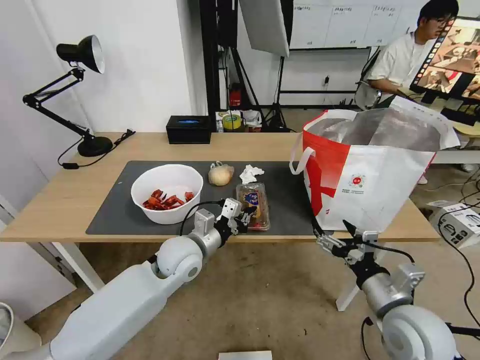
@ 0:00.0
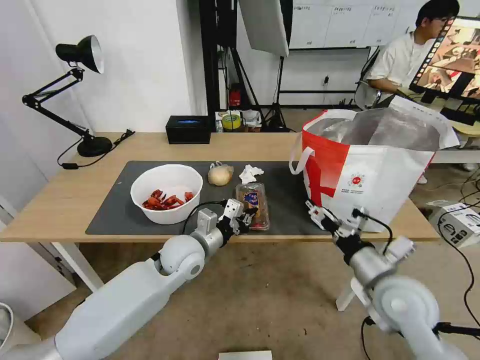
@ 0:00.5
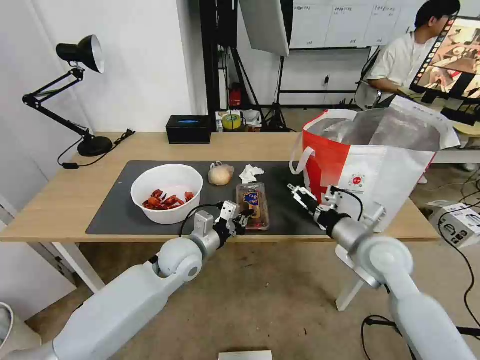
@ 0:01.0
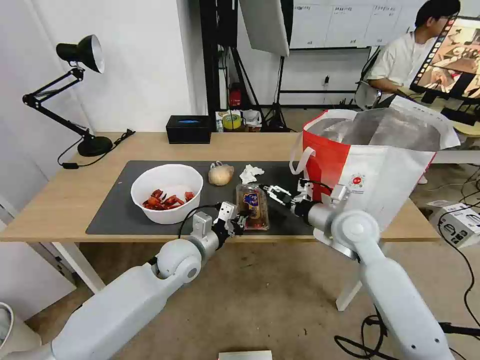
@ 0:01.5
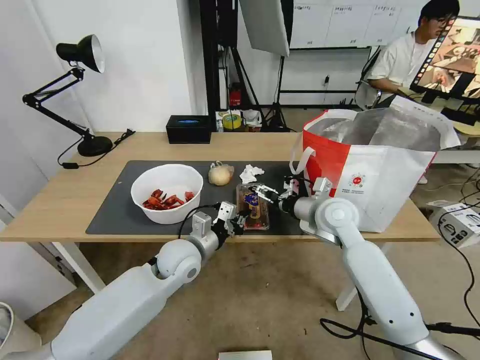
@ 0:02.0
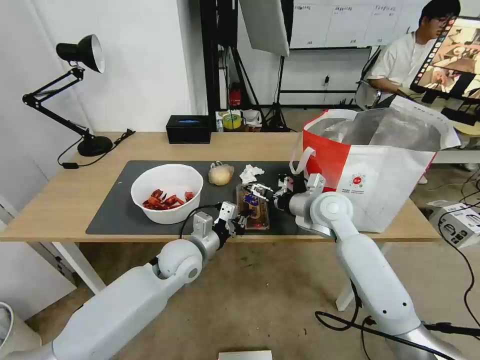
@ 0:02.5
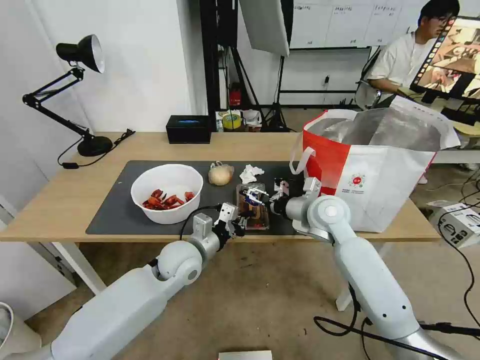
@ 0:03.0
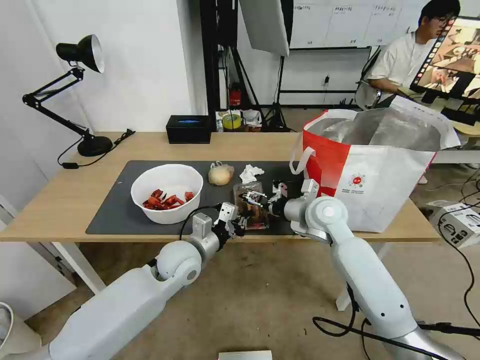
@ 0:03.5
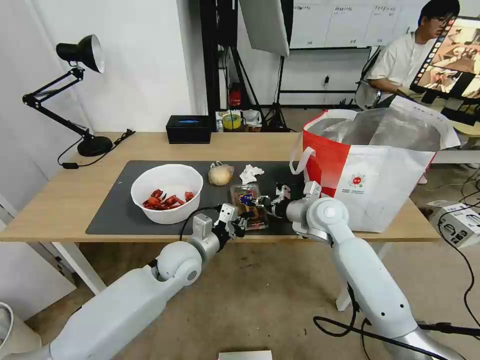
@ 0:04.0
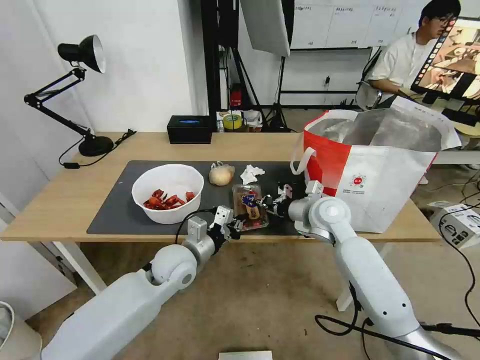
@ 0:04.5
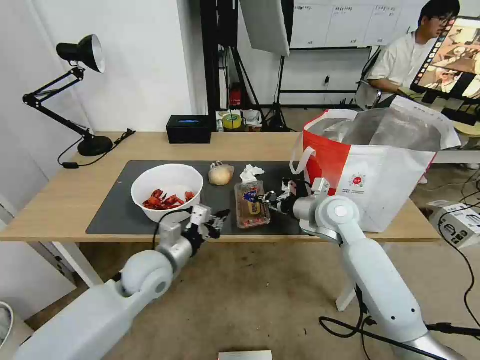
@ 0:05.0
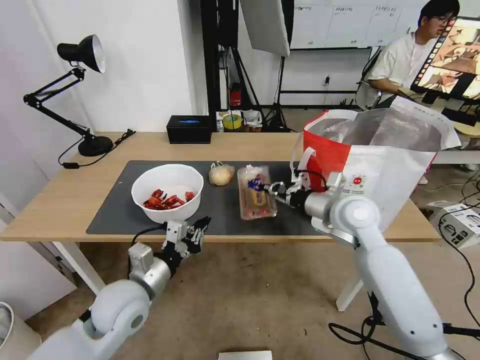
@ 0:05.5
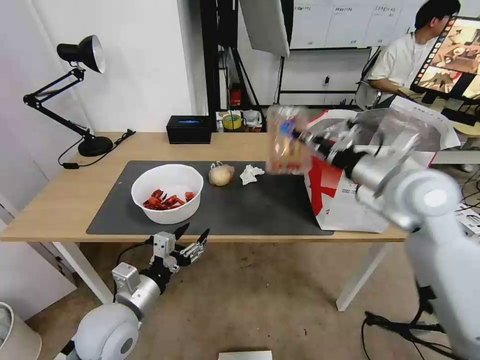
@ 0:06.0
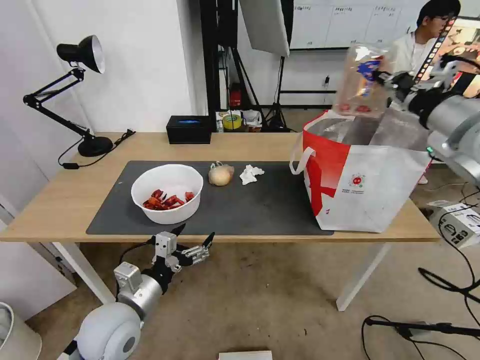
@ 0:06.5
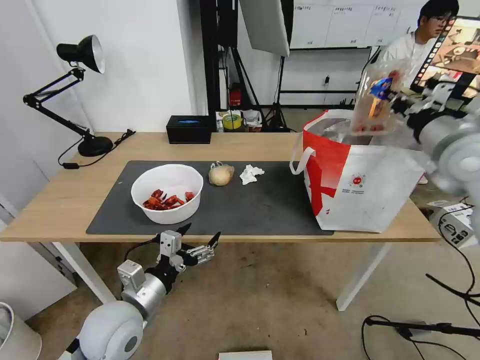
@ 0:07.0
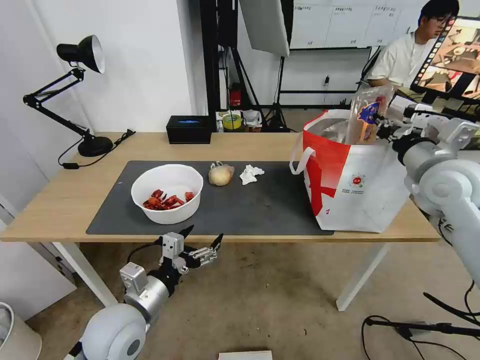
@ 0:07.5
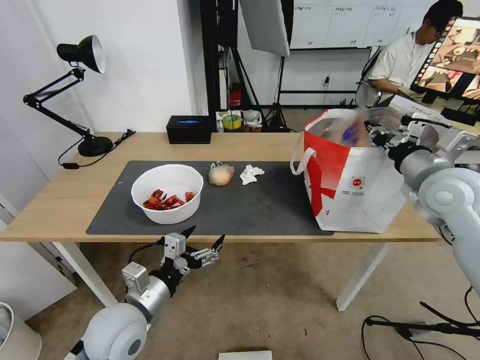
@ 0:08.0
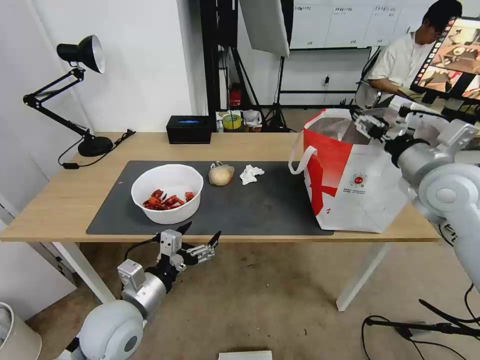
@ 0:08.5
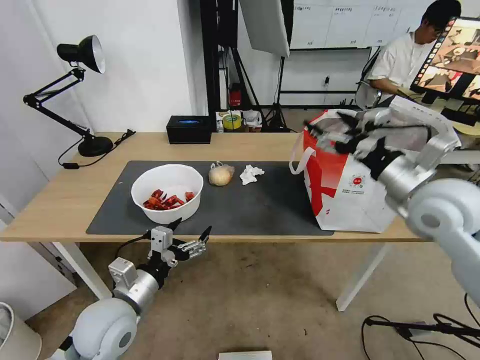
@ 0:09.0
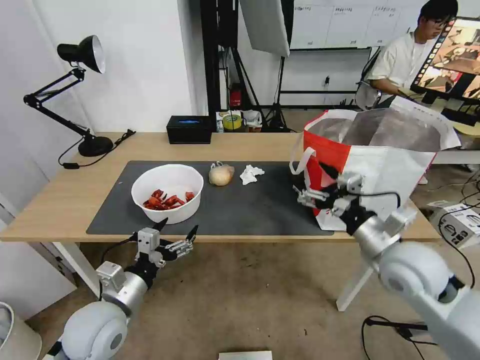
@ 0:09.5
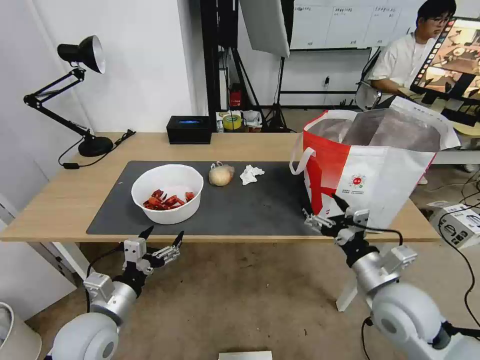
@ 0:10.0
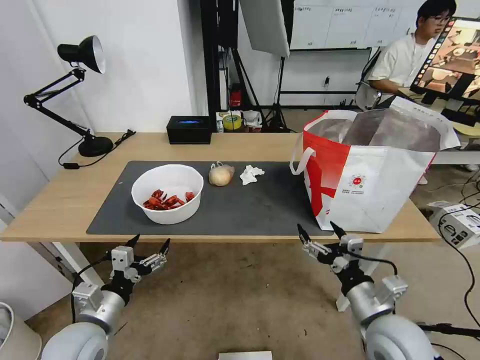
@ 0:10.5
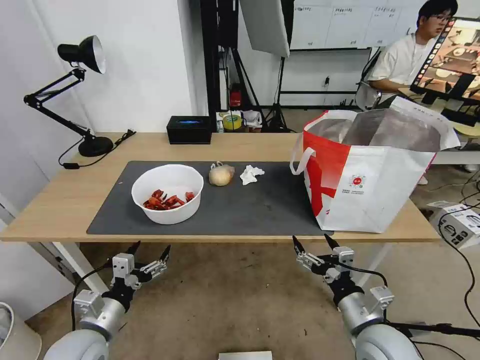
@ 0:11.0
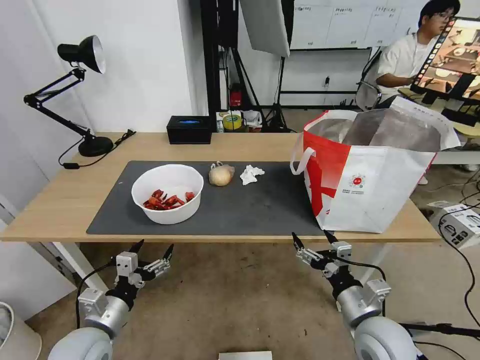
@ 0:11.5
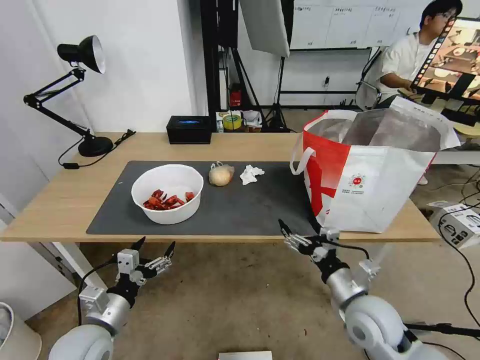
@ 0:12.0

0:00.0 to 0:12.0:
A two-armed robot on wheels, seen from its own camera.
Task of the whole recording: Pick up the trash from the table and place it into the takeout bag.
0:00.0 to 0:02.0: The right gripper goes roughly 20 cm forward.
0:02.0 to 0:04.0: The right gripper closes up.
0:04.0 to 0:06.0: The left gripper goes approximately 15 cm backward and to the left, and opens its fingers. The right gripper moves upward, to the right and backward, roughly 20 cm.
0:06.0 to 0:08.0: The right gripper heads to the right, covering some 10 cm, and travels upward and back again, some 10 cm each way.
0:08.0 to 0:10.0: The right gripper is displaced downward, backward and to the left by approximately 20 cm, and opens up. Meanwhile the left gripper moves to the left, approximately 5 cm.
0:10.0 to 0:12.0: The right gripper shifts some 5 cm downward.

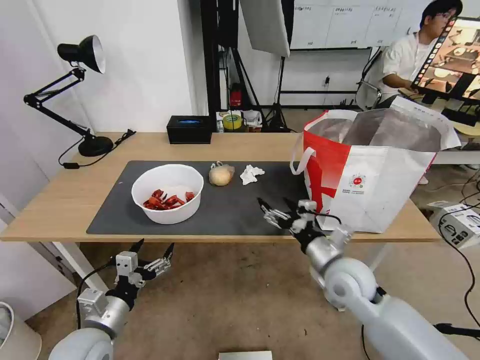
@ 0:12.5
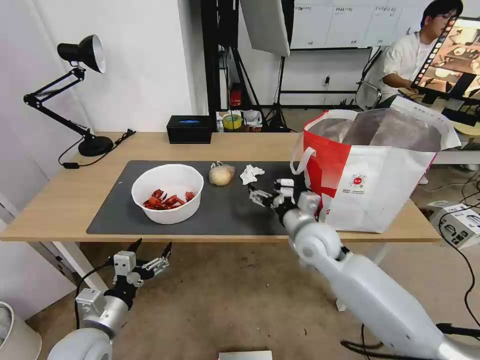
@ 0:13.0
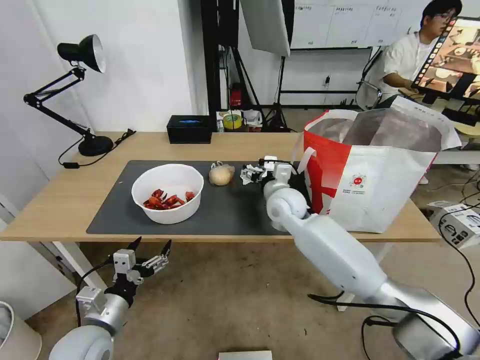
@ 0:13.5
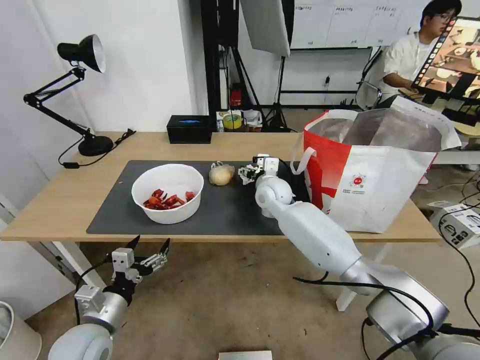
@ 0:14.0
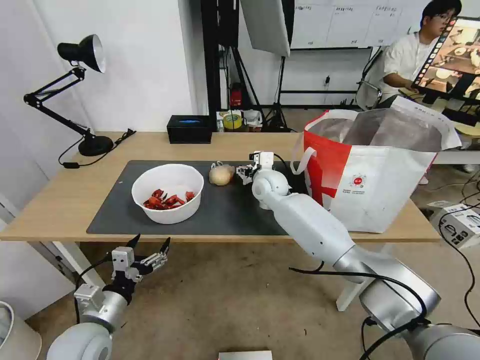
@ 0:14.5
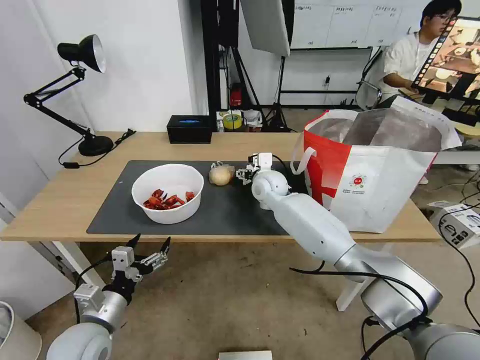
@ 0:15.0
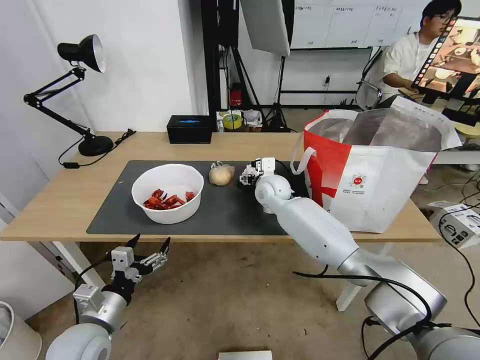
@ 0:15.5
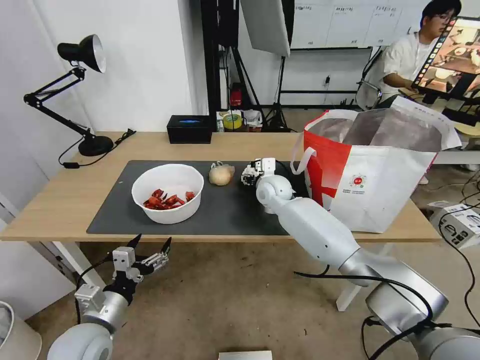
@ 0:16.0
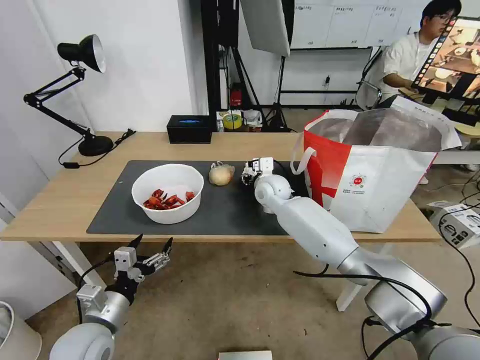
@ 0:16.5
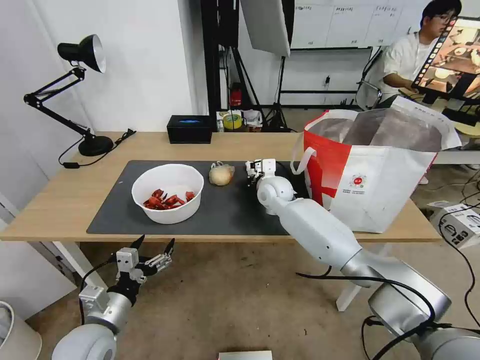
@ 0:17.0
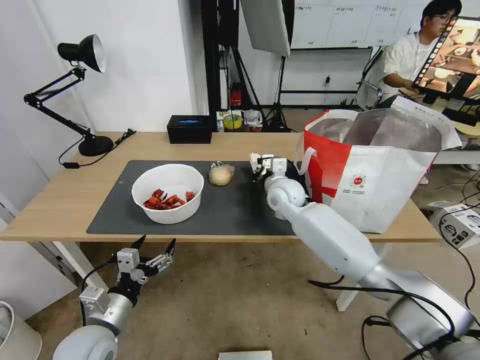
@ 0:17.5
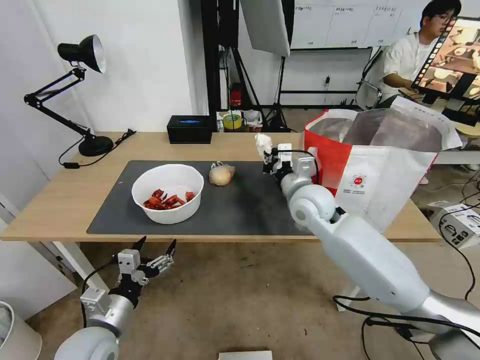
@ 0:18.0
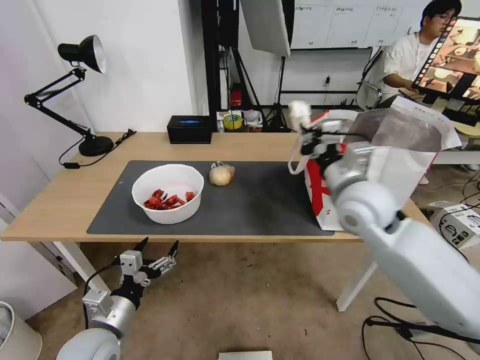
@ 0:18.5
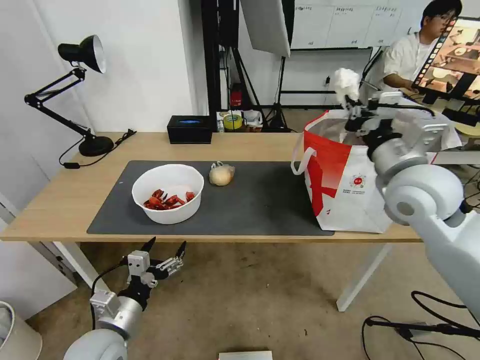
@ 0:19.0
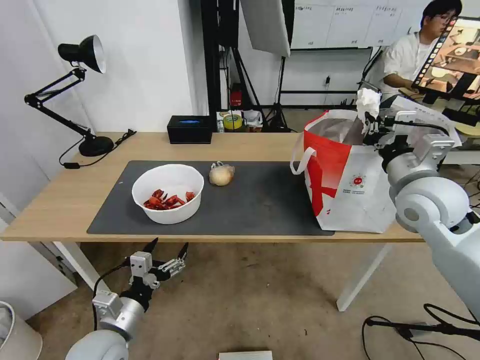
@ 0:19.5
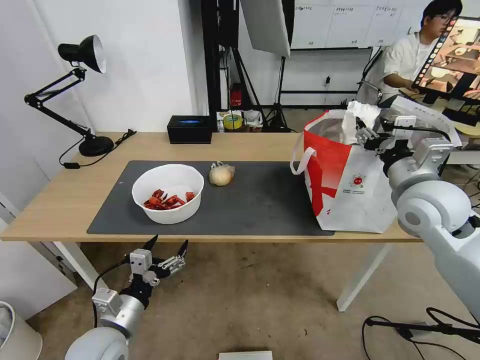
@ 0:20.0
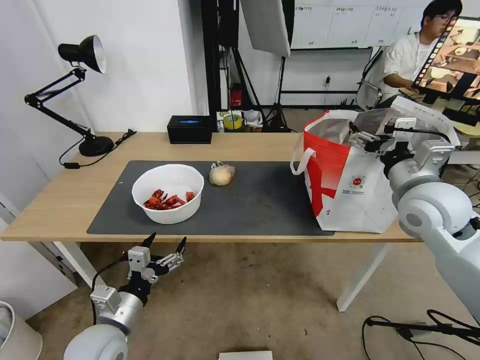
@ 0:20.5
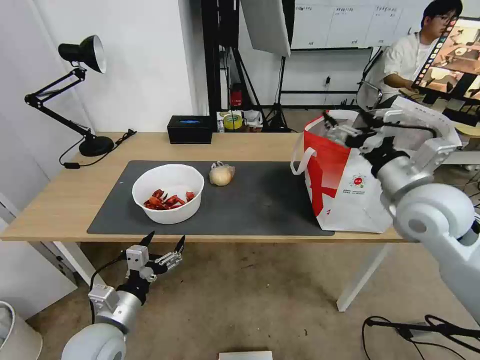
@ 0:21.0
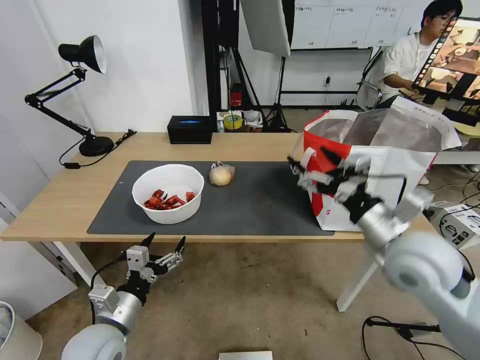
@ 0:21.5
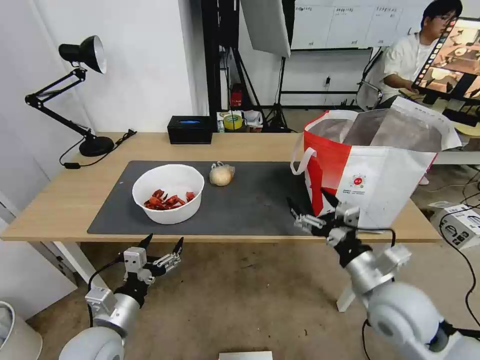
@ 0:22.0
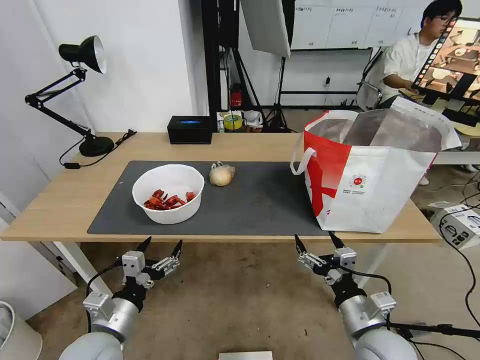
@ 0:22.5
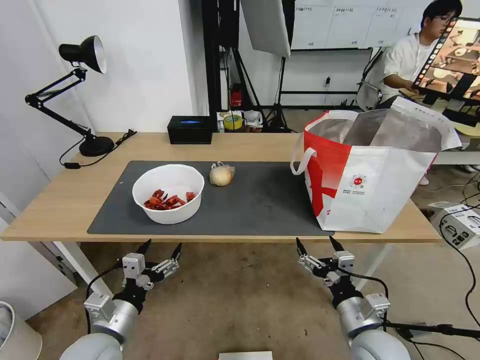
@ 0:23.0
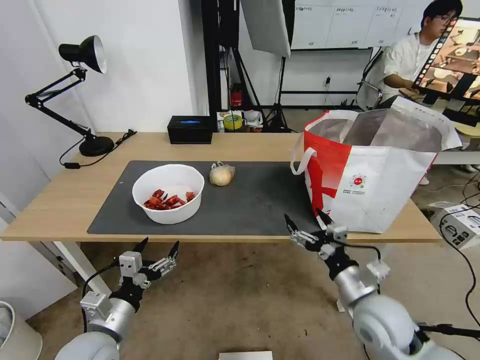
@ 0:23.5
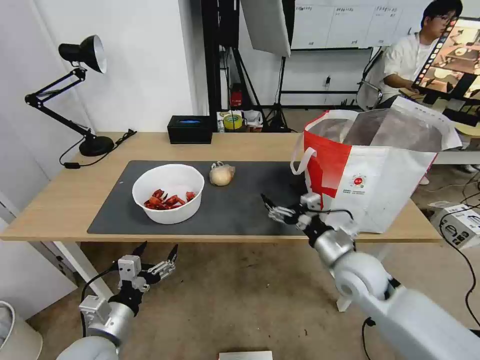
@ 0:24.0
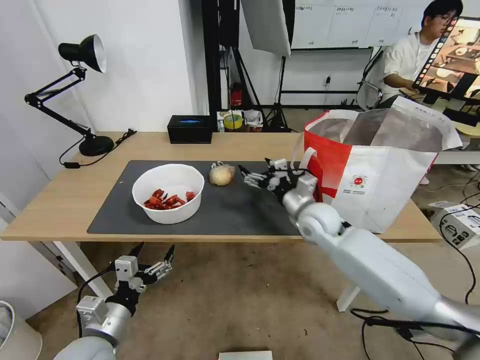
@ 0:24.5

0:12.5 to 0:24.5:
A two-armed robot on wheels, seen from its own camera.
Task of the whole recording: Pick up the trash from the table and place it into the takeout bag.
0:12.5 to 0:14.5: The right gripper travels forward and to the left by approximately 30 cm.
0:14.5 to 0:16.5: The right gripper closes.
0:16.5 to 0:18.5: The right gripper goes about 25 cm backward, to the right and upward, and closes up.
0:18.5 to 0:20.5: The right gripper heads to the right, covering some 10 cm, and opens.
0:20.5 to 0:22.5: The right gripper goes roughly 25 cm downward and backward.
0:22.5 to 0:24.5: The right gripper shifts some 25 cm forward.

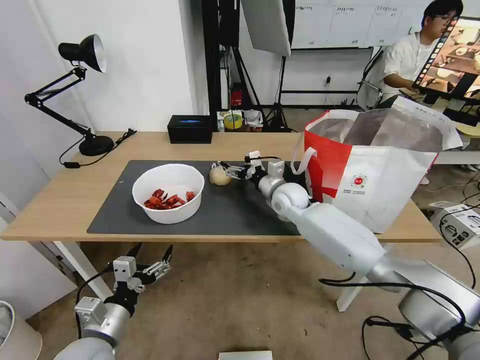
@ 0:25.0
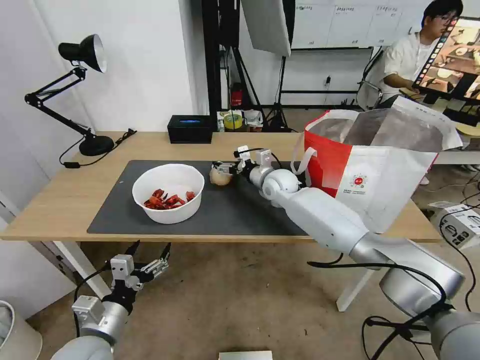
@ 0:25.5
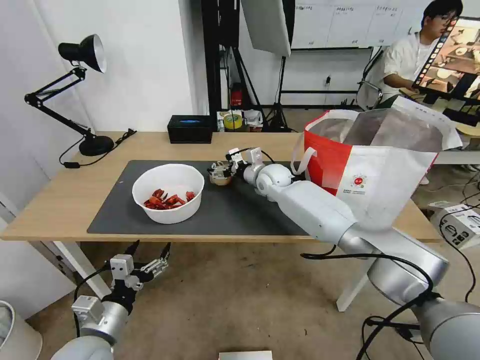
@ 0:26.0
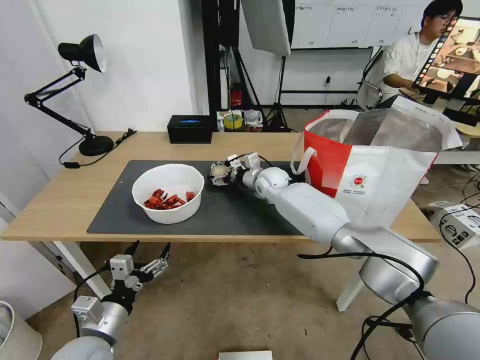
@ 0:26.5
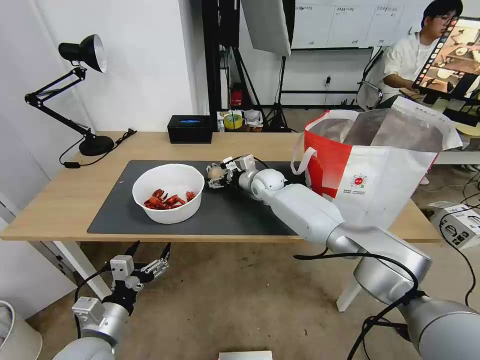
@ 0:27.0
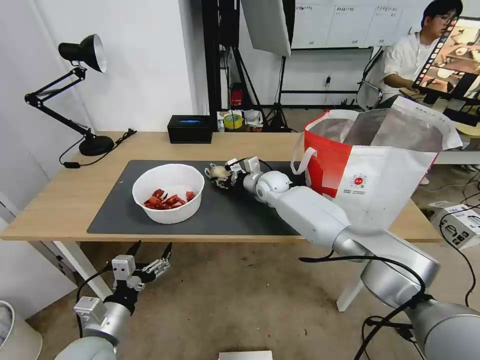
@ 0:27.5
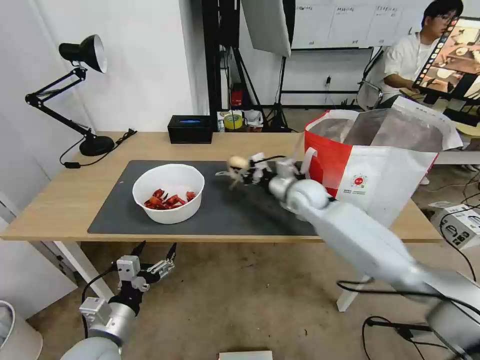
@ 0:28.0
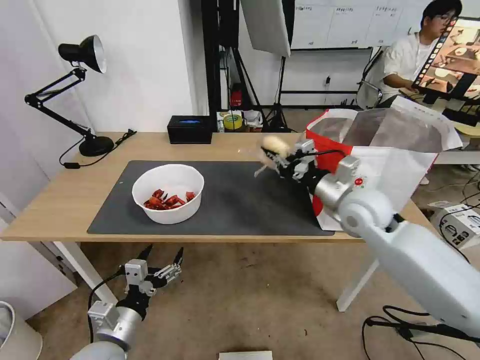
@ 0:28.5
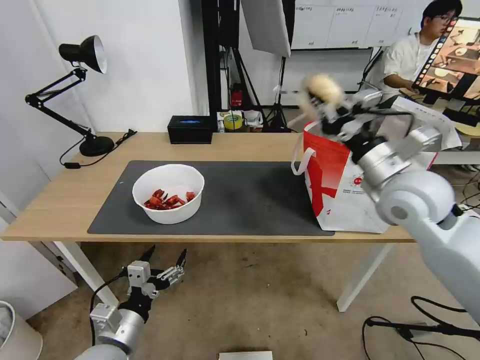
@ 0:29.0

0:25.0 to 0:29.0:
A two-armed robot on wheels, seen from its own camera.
Task of the whole recording: Pick up the trash from the table and place it into the takeout bag.
0:25.0 to 0:27.0: The right gripper travels forward and to the left by some 10 cm.
0:27.0 to 0:29.0: The right gripper heads backward, to the right and upward, covering some 35 cm, and closes.
